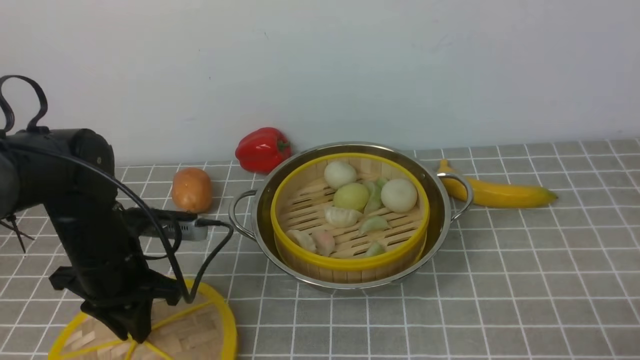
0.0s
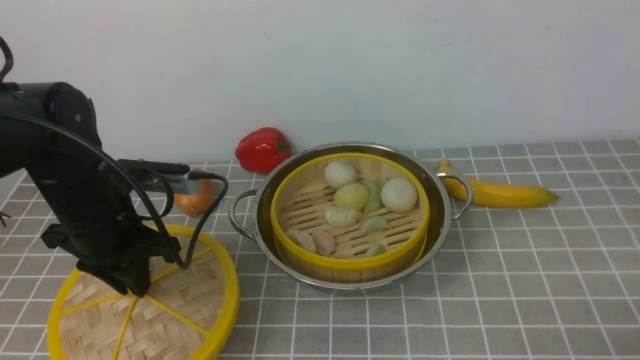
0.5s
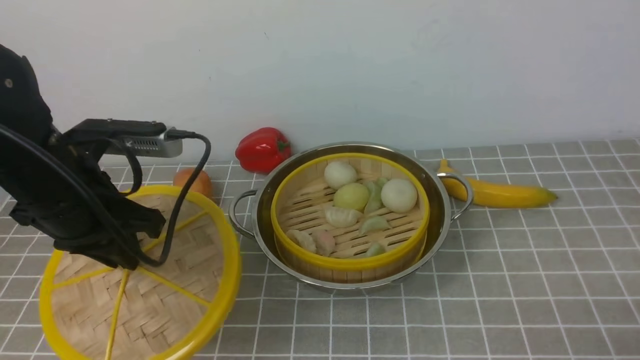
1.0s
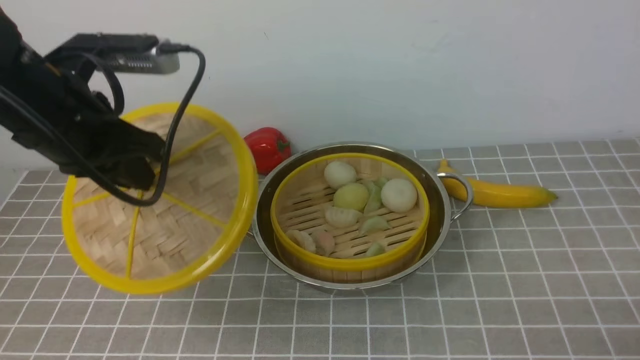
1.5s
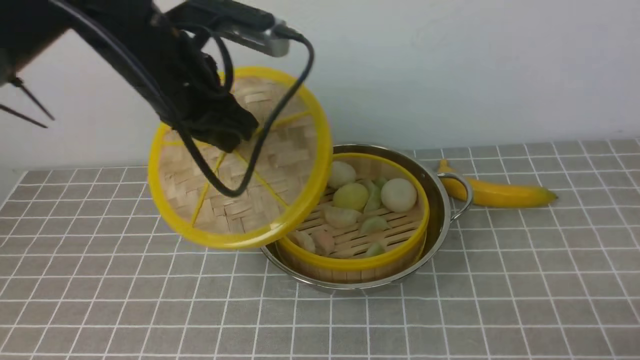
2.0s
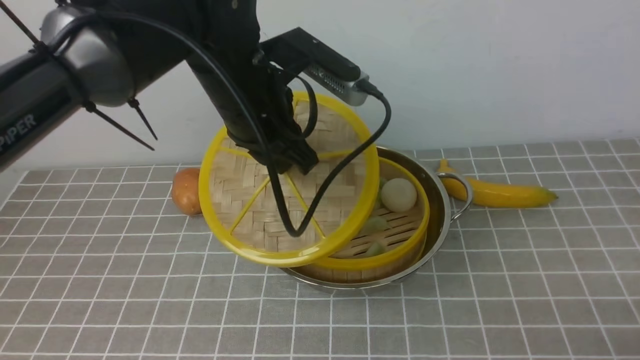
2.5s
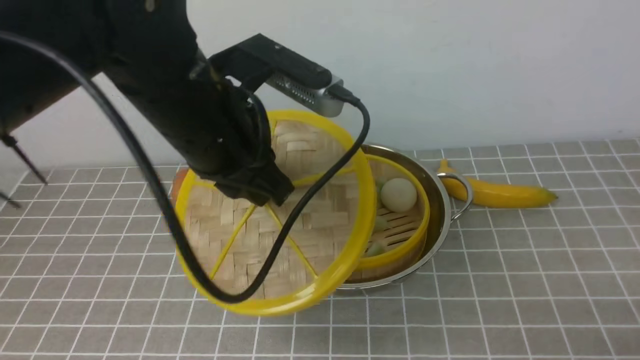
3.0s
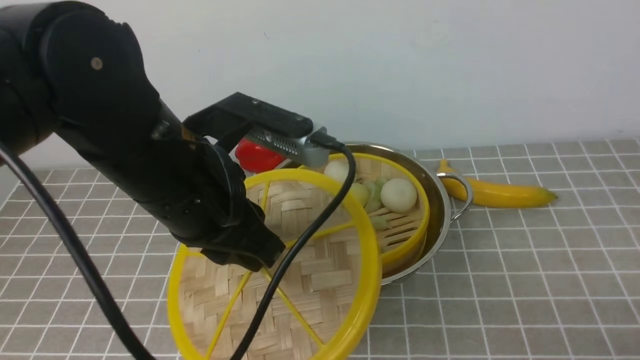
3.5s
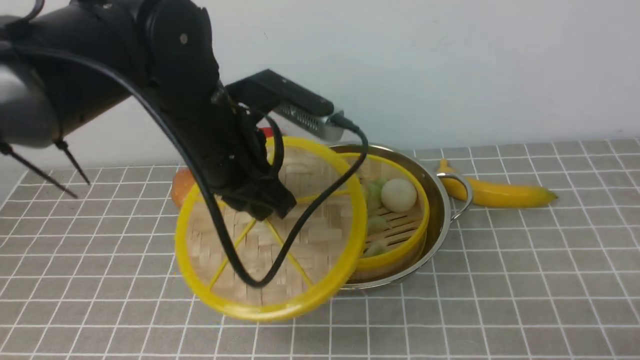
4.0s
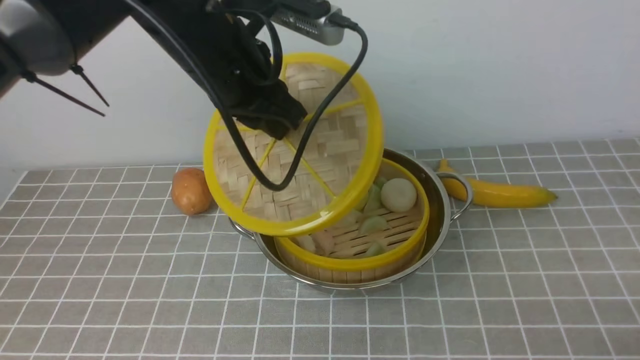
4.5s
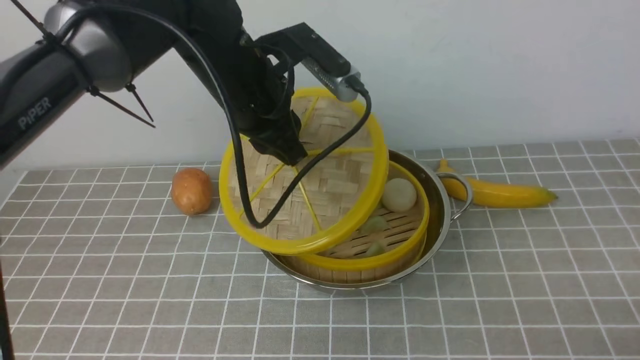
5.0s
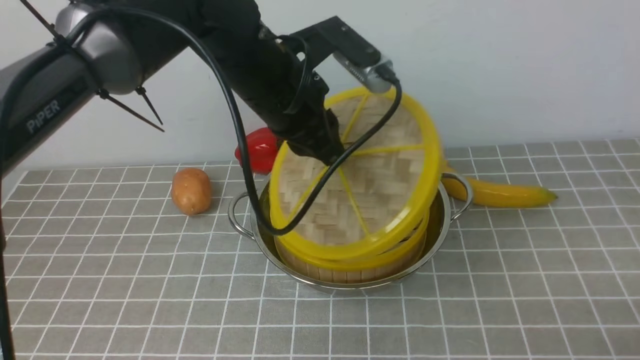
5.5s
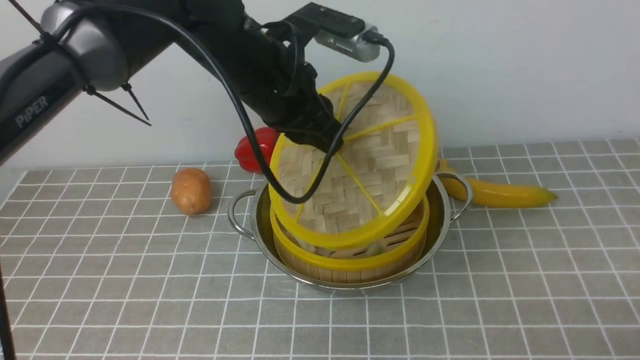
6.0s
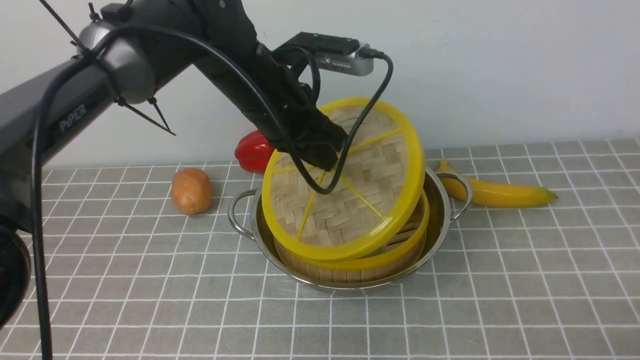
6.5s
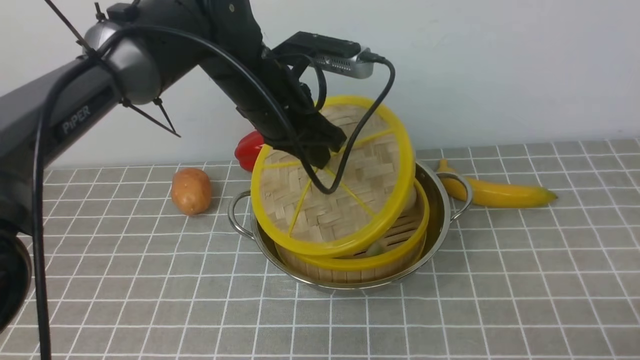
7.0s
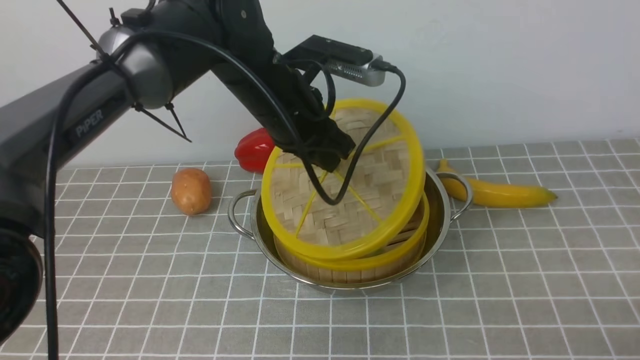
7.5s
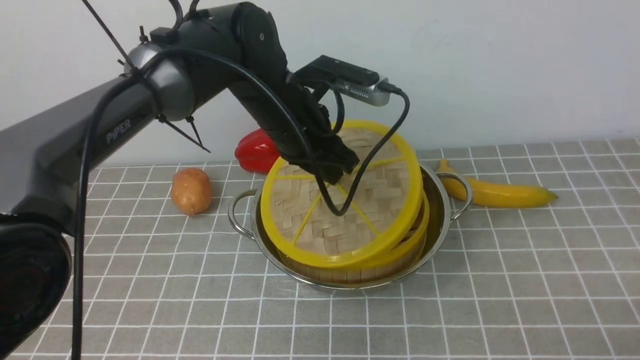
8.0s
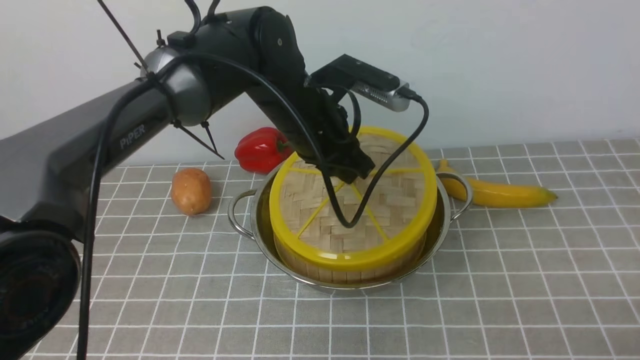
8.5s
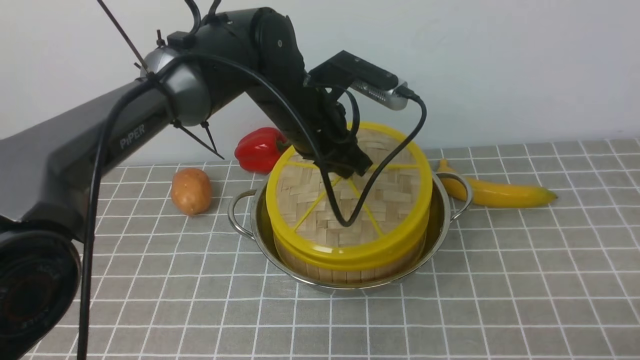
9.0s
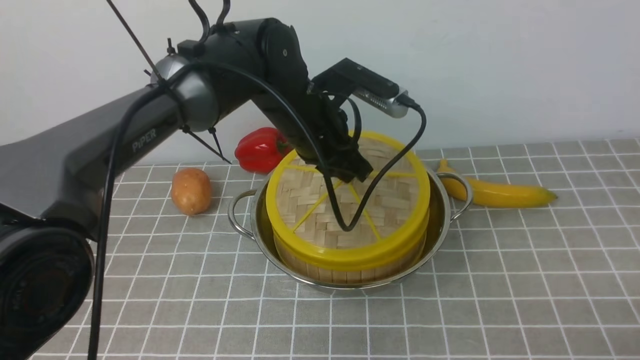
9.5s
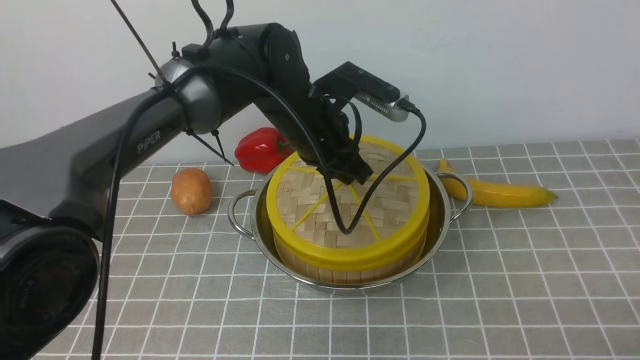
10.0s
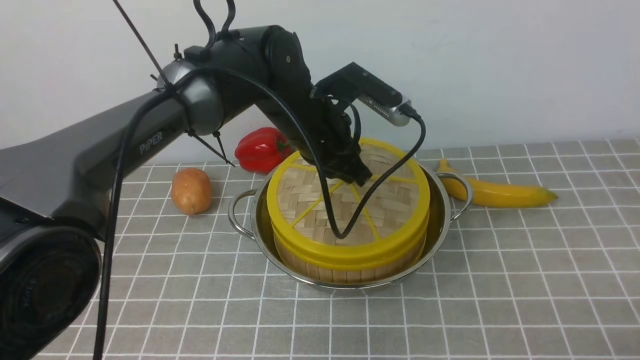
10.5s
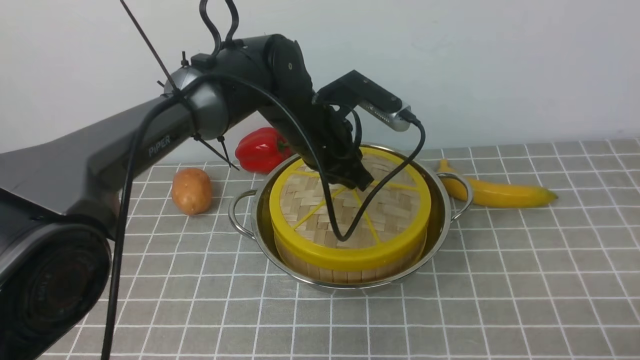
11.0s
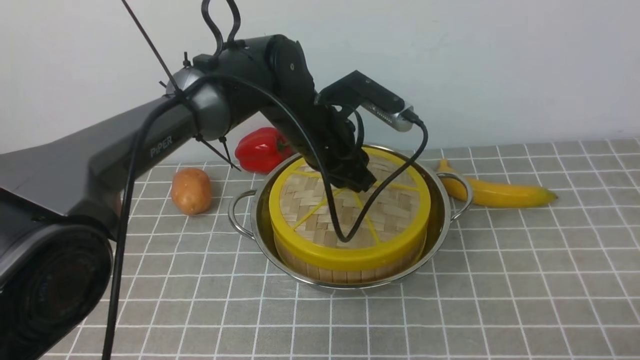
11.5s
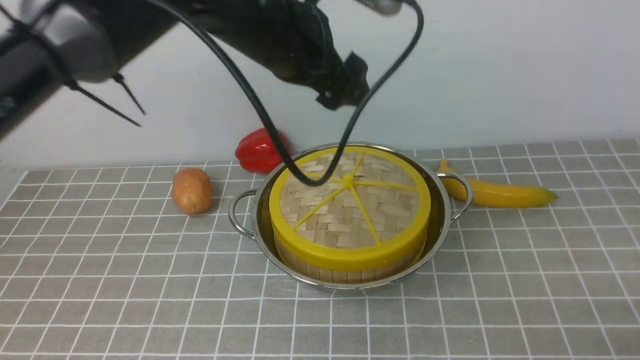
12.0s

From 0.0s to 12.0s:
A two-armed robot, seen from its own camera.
Task of the whole recording: place the steamer in the pot on the grey tablecloth, and put the lid on the steamer.
Step, from 0.5s to 11.5s: use the left arm to place the steamer lid on the steamer.
From 0.0s to 2.0s: The left gripper goes approximately 20 cm upward and to the right.
From 4.0s to 6.0s: The left gripper travels forward by about 5 cm.
From 6.0s to 8.0s: The left gripper moves downward, roughly 5 cm.
From 8.0s to 10.0s: There are only small adjustments of the grippers.
From 10.0s to 12.0s: The left gripper moves upward, roughly 10 cm, and opens.

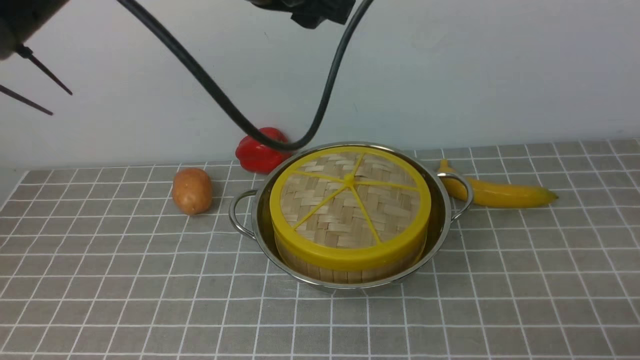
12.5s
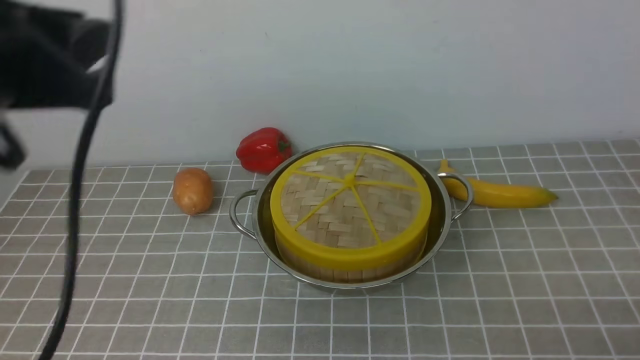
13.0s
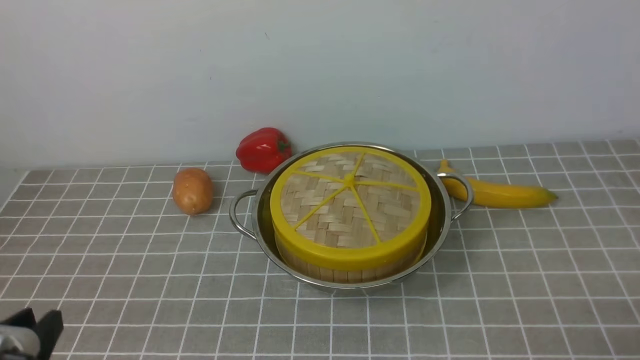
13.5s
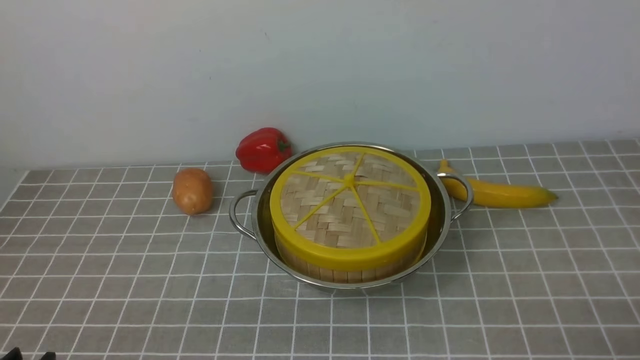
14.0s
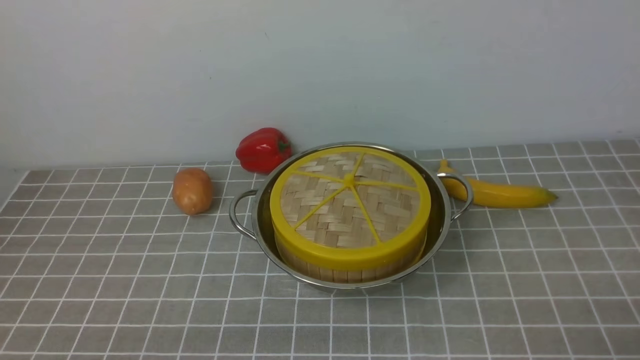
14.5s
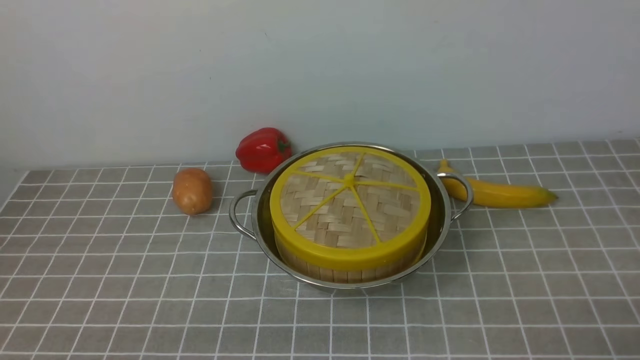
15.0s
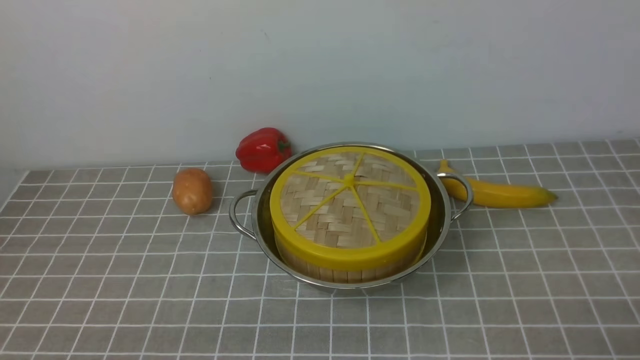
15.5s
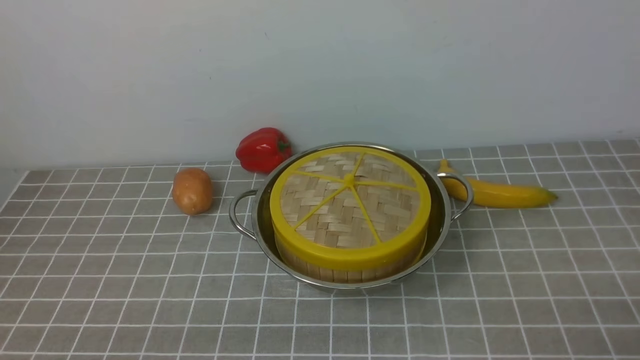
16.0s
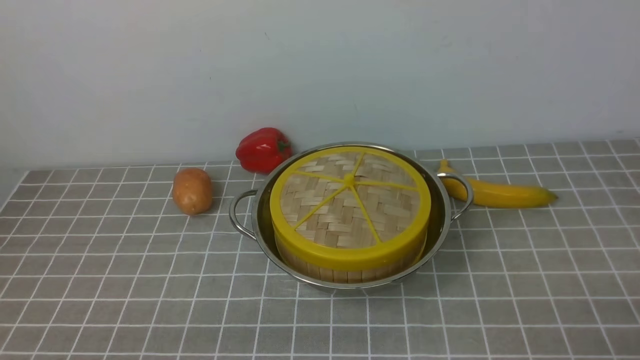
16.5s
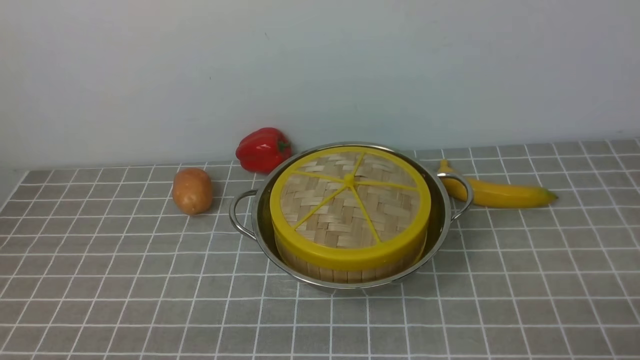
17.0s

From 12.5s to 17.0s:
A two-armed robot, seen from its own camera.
Task of the whole recording: place the steamer in the pot on the grey tablecloth, and put the lid on the steamer.
From 12.5s to 14.5s: The left gripper travels backward, downward and to the left by roughly 40 cm, and closes up.

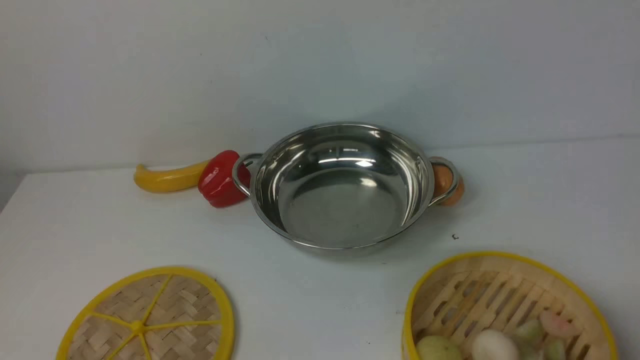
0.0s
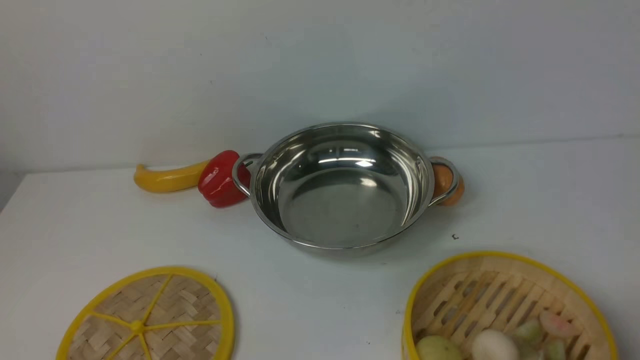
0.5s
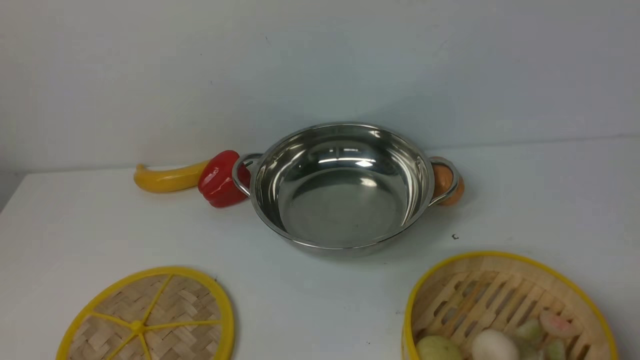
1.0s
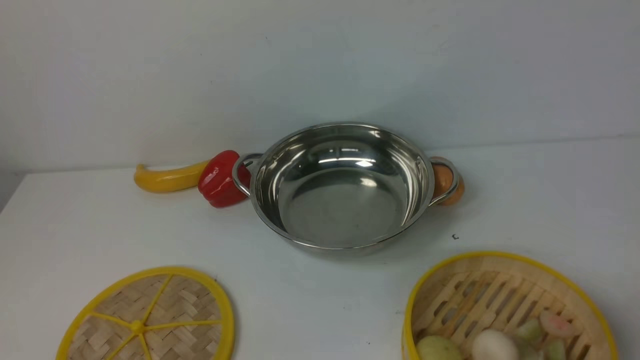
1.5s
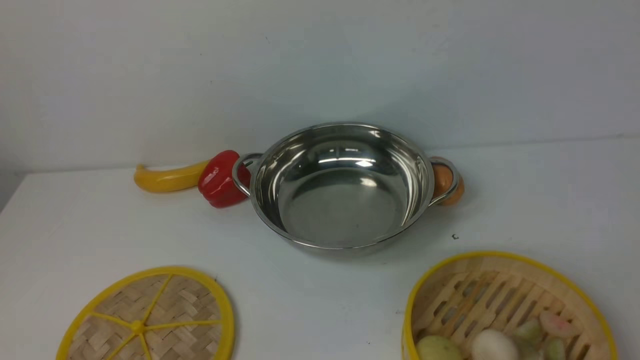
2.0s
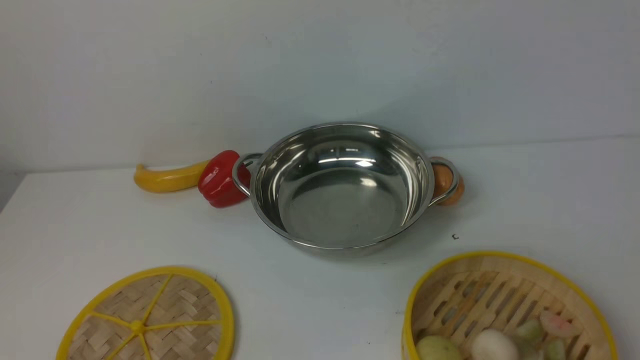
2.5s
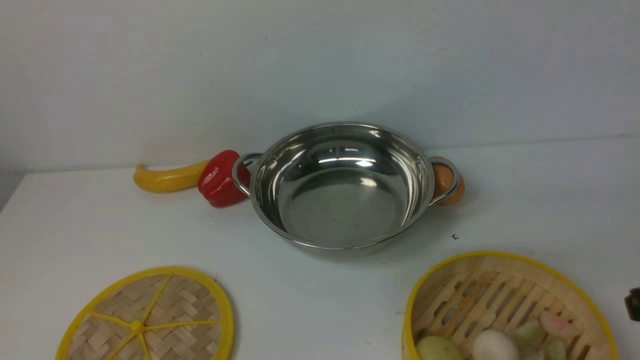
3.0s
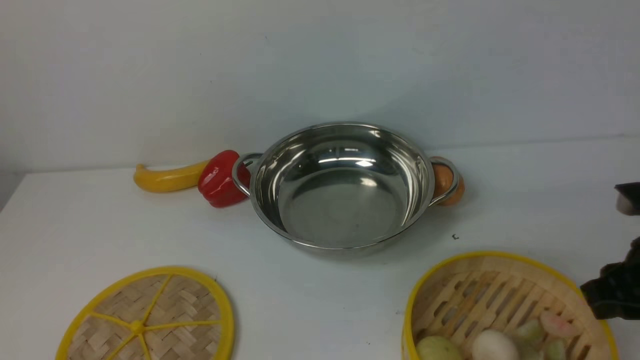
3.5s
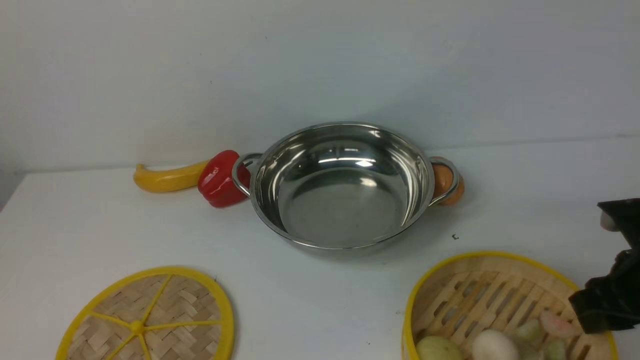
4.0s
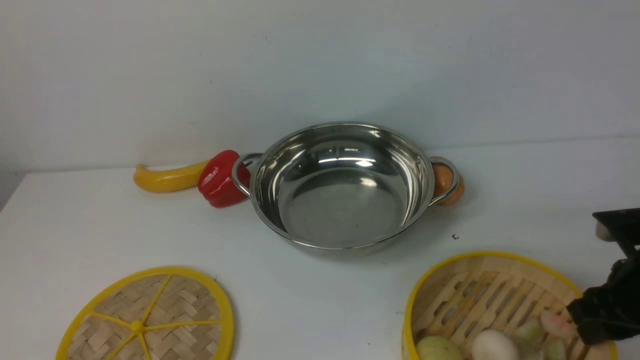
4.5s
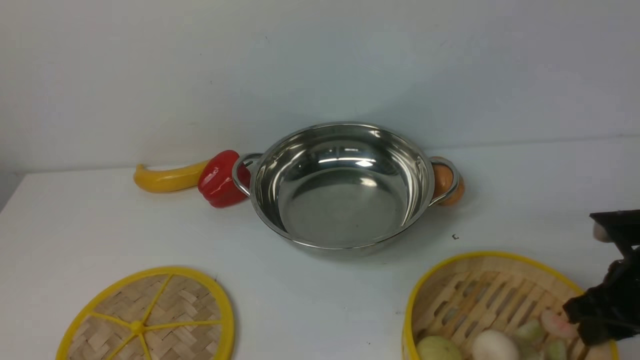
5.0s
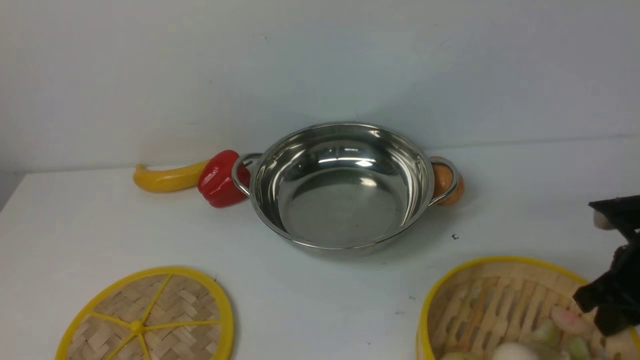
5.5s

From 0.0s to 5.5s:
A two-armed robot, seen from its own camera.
Task of the whole recording: place the steamer in the pot on the white table, and put the lid on the steamer.
From 2.0s to 3.5s: The right gripper moves forward and downward, about 25 cm.
From 3.5s to 5.5s: The right gripper closes its fingers.
